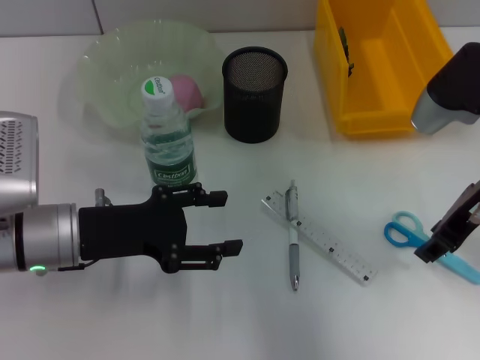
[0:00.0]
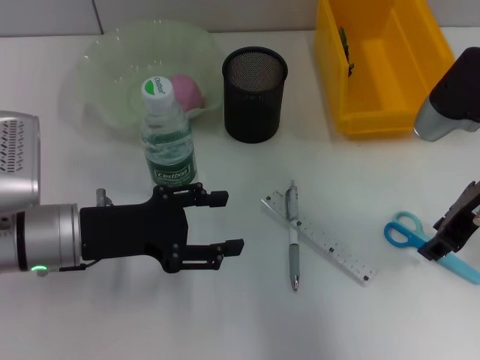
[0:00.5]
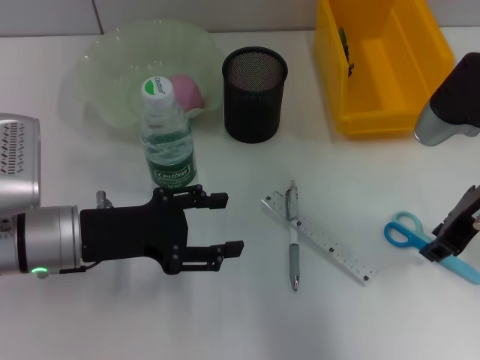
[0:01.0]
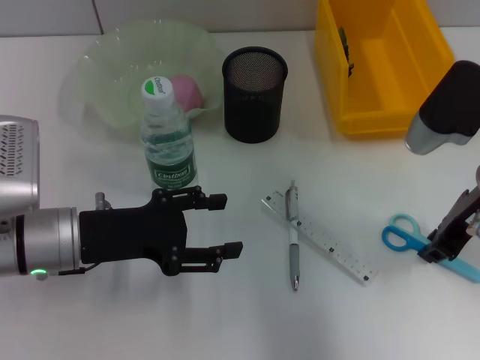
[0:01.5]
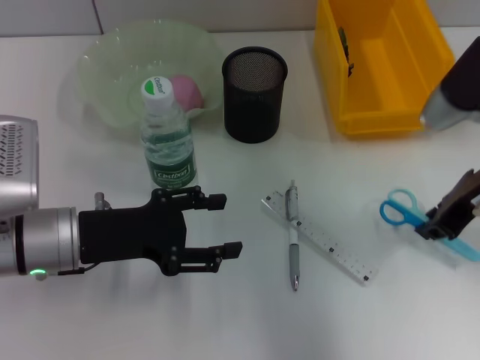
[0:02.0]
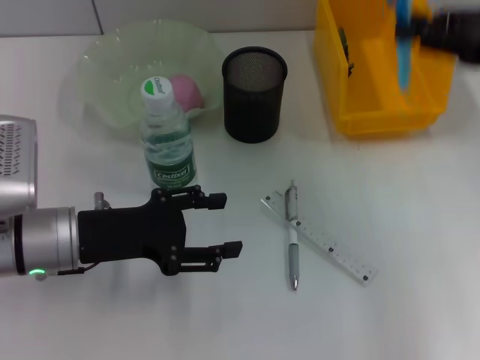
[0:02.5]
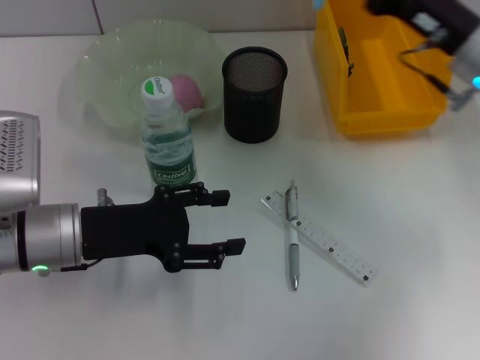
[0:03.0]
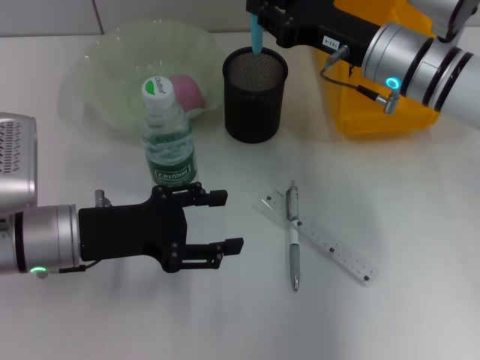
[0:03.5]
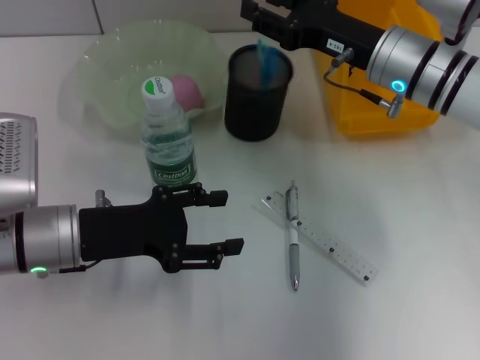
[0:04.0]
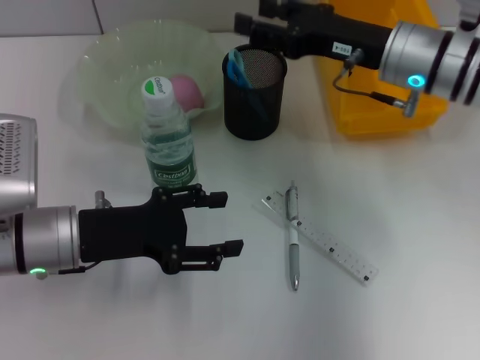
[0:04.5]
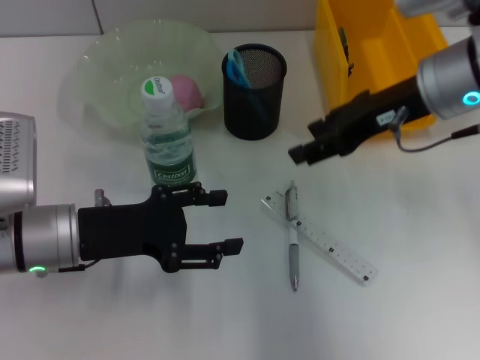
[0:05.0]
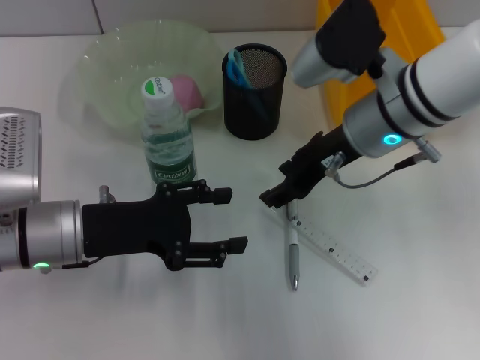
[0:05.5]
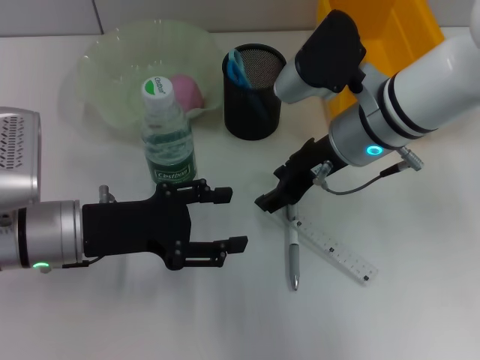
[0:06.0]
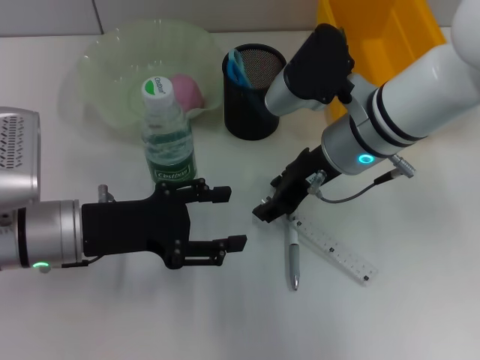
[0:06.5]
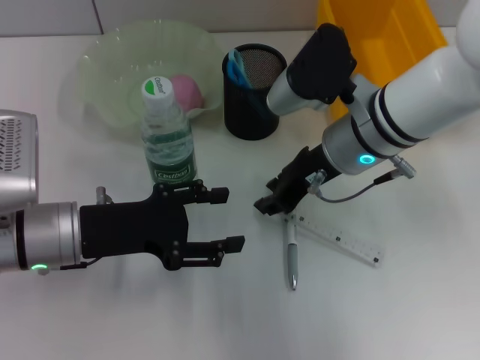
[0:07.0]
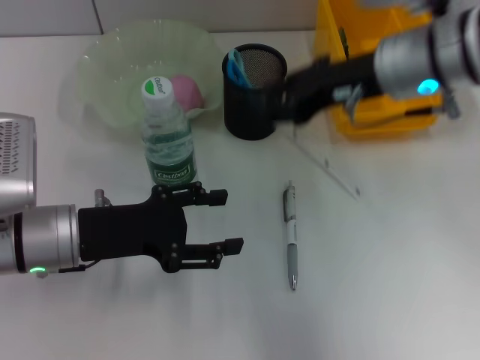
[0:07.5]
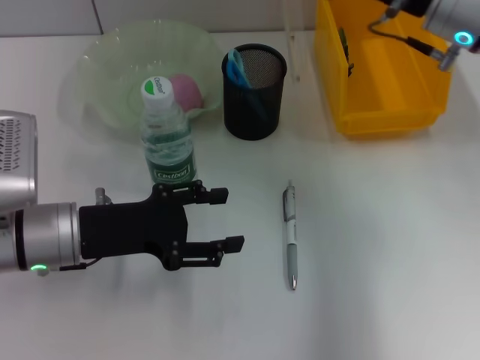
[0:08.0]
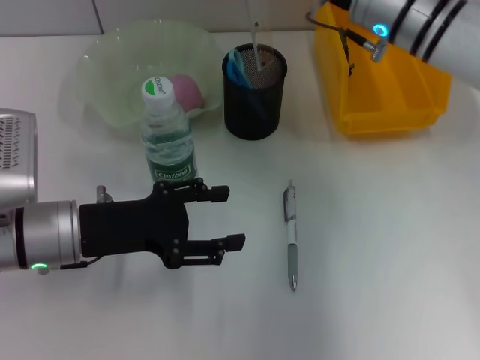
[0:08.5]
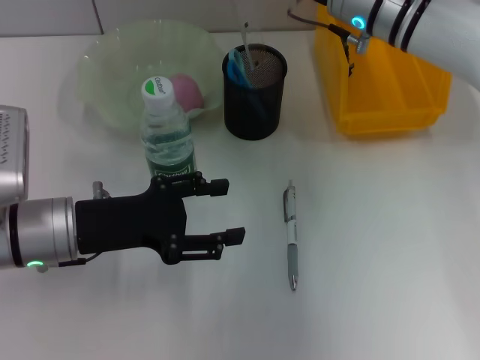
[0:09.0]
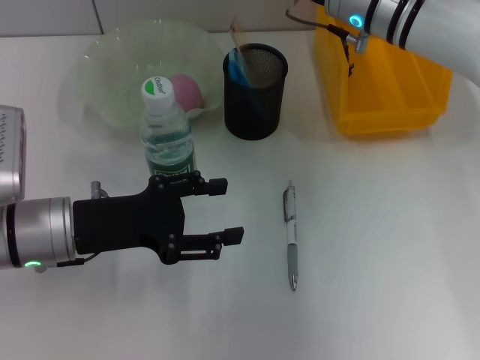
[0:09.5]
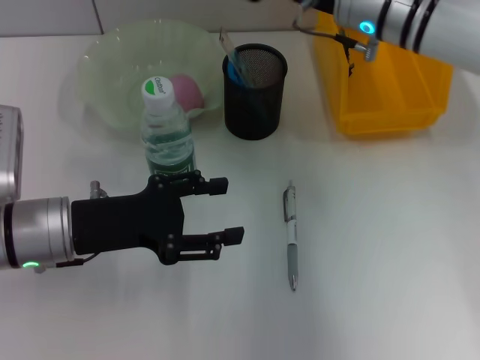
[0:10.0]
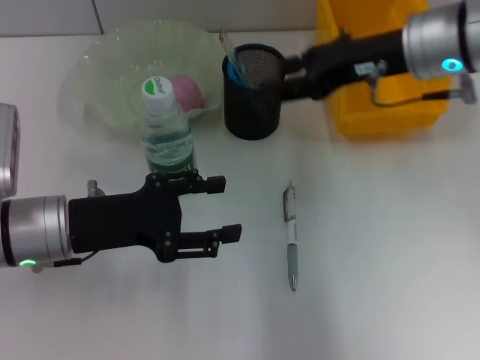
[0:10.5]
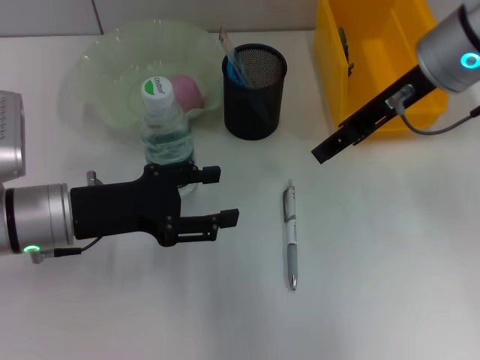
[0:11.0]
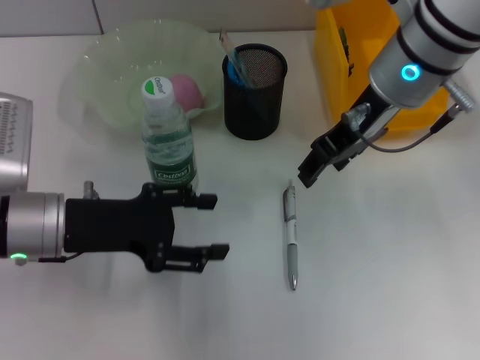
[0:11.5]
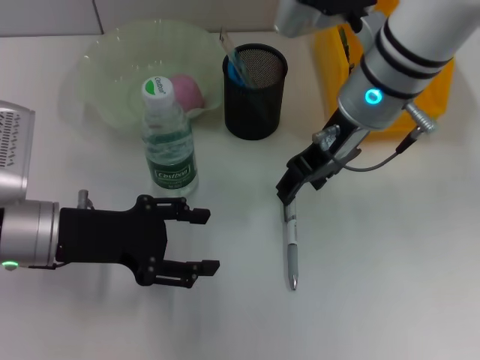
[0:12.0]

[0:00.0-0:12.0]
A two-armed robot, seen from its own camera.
Step, 0:02.0 to 0:04.5: Place the blue scissors into the pen holder with the right hand.
Step, 0:05.0 to 0:06.5: Grab the ruler with the right hand.
Step, 0:07.0 to 0:10.0: Place the ruler into the pen holder with the right hand.
0:00.0 to 0:02.0: The right gripper closes its fingers.
0:02.0 to 0:04.0: The right gripper is displaced forward and to the left by approximately 10 cm, and opens up.
0:04.0 to 0:06.0: The right gripper goes roughly 5 cm to the left.
0:06.0 to 0:08.0: The right gripper heads to the right and upward, covering some 10 cm, and closes its fingers.
0:08.0 to 0:10.0: The right gripper heads to the left, covering roughly 5 cm.
0:10.0 to 0:12.0: The right gripper moves backward, some 5 cm.

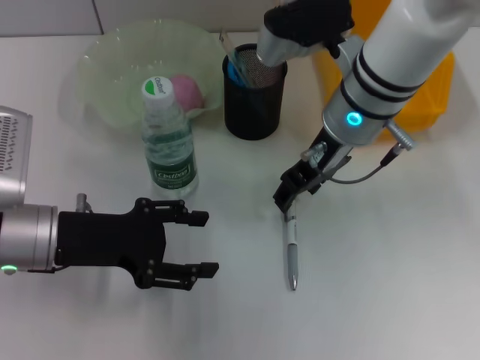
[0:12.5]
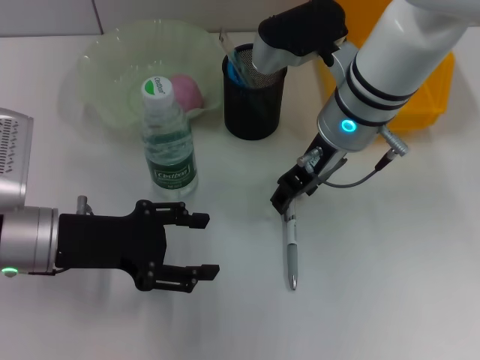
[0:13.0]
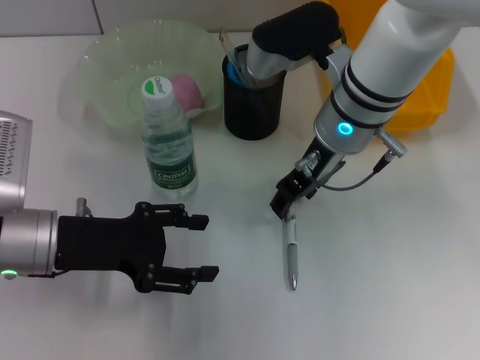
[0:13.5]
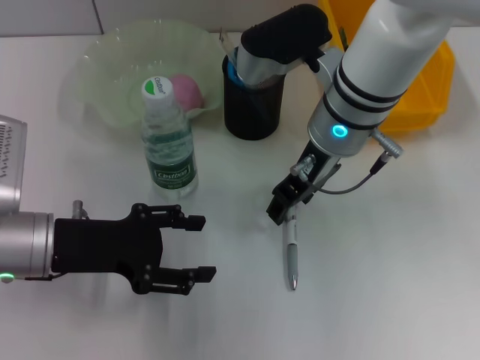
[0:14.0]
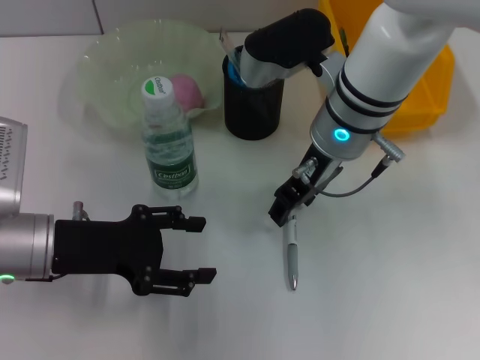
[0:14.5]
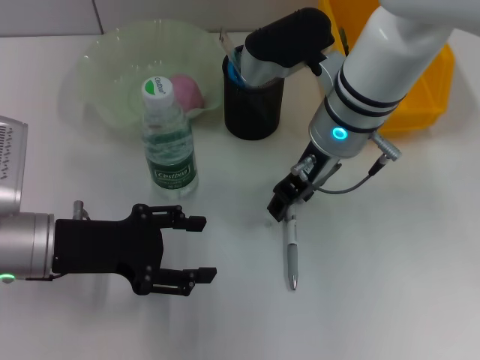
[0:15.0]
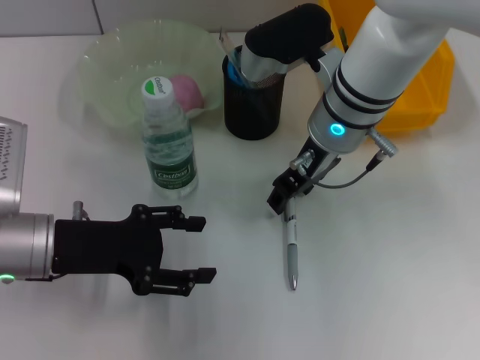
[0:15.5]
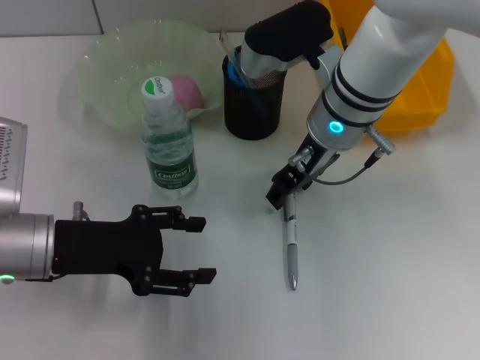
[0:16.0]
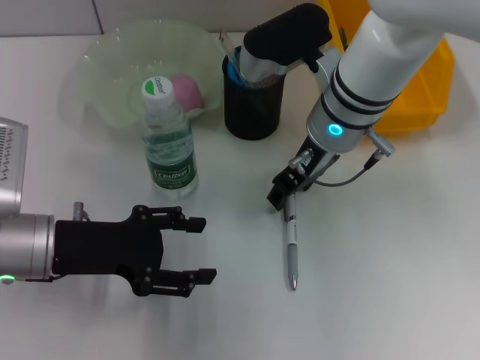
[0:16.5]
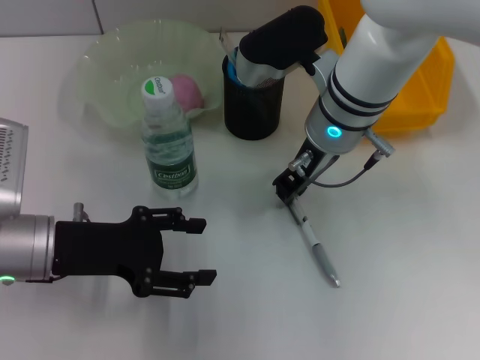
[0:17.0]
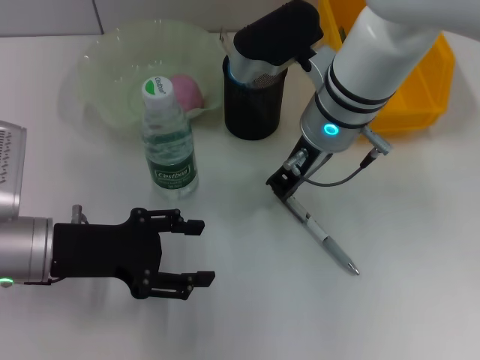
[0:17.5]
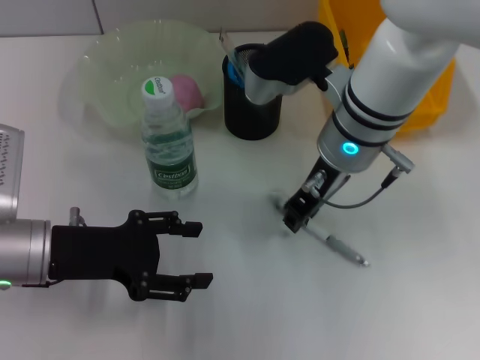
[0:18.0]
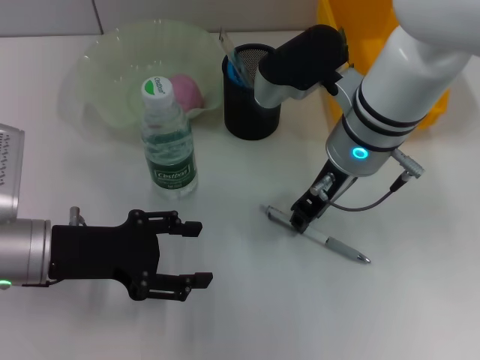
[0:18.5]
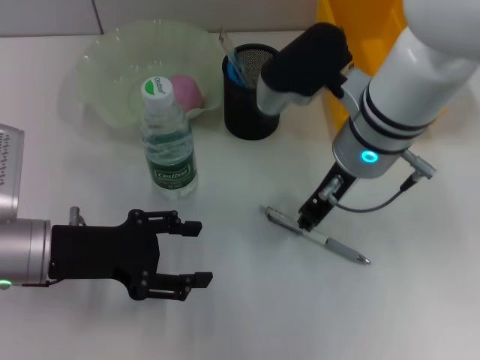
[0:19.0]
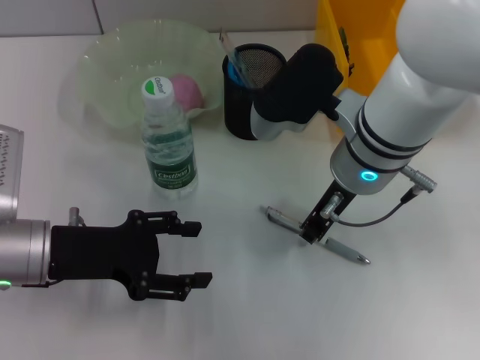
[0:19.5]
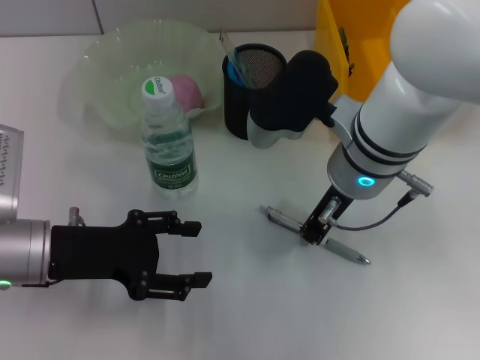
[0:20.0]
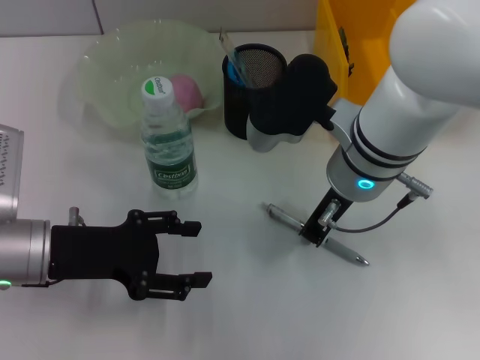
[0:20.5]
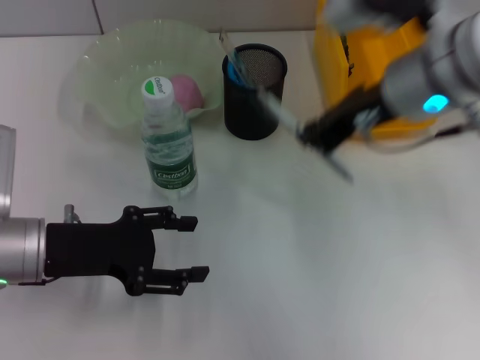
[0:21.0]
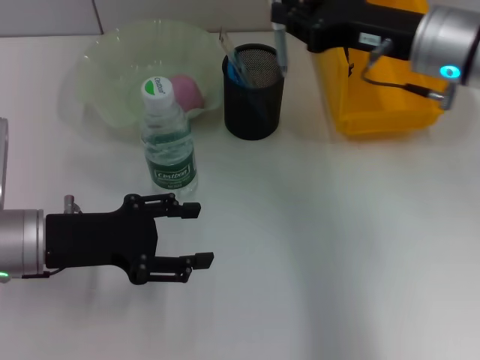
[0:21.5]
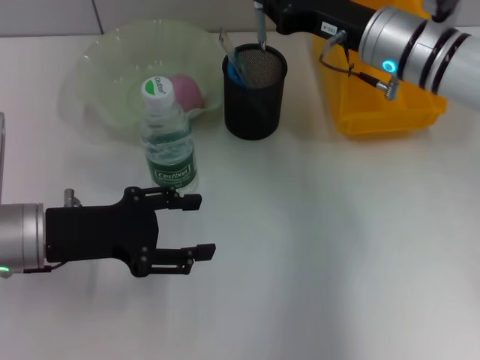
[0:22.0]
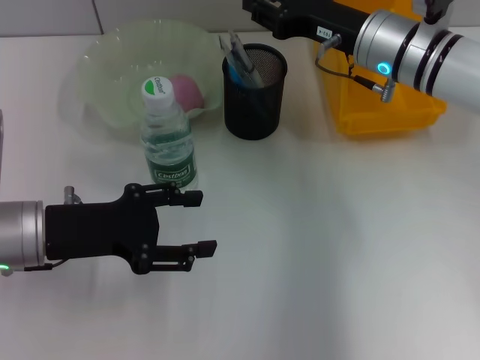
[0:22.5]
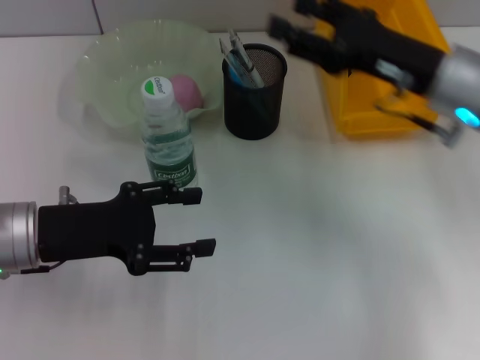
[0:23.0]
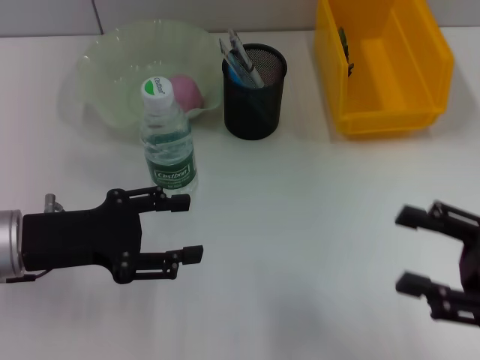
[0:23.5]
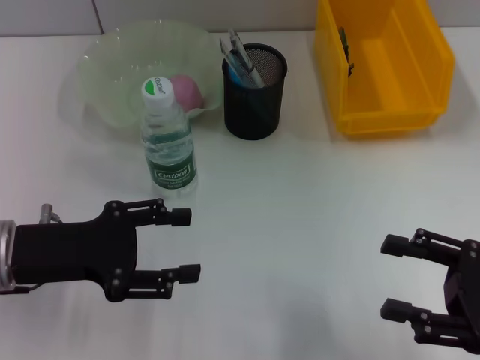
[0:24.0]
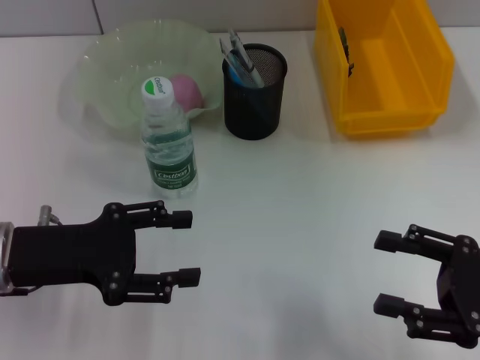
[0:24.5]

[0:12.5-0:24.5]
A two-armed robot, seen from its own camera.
Step, 0:12.5 to 0:20.0: Grab the gray spring-action pen with the right hand.
Step, 0:20.5 to 0:22.5: Place the gray spring-action pen into the pen holder with the right hand.
0:12.5 to 0:16.5: The grippers move only a little.
0:16.5 to 0:18.5: The right gripper closes its fingers.
0:18.5 to 0:20.5: The grippers stay close to where they were, moving slightly.
0:20.5 to 0:22.5: The right gripper travels forward and to the right by approximately 10 cm.
0:22.5 to 0:24.5: The right gripper goes roughly 25 cm backward and to the right, and opens up.
